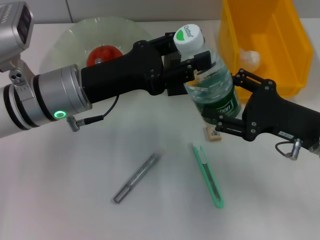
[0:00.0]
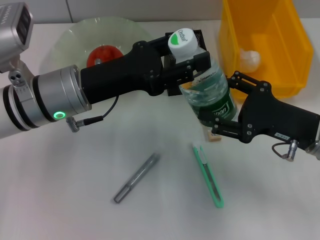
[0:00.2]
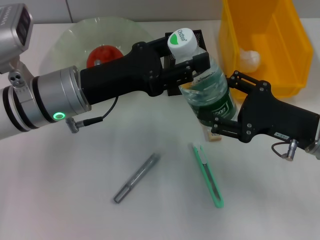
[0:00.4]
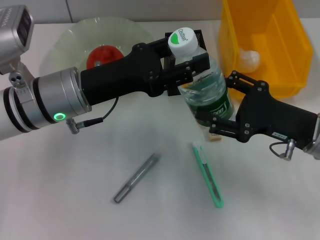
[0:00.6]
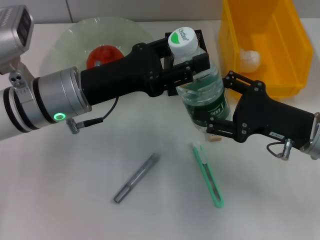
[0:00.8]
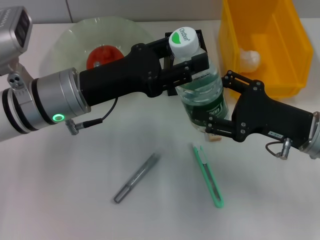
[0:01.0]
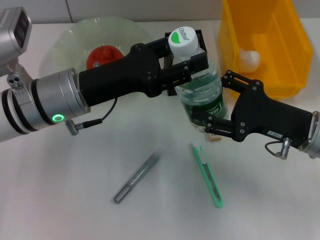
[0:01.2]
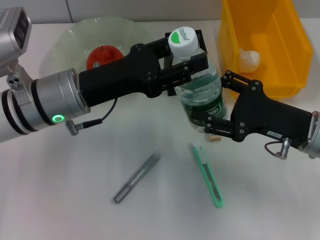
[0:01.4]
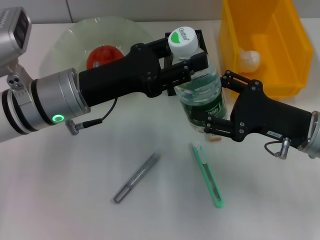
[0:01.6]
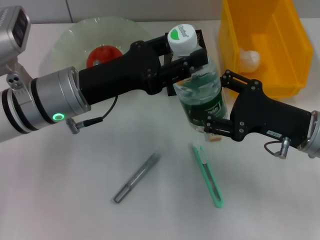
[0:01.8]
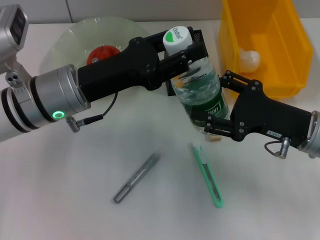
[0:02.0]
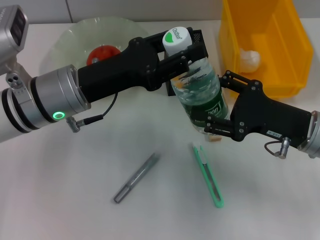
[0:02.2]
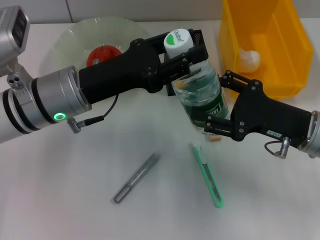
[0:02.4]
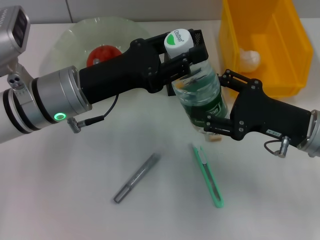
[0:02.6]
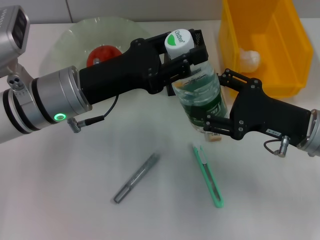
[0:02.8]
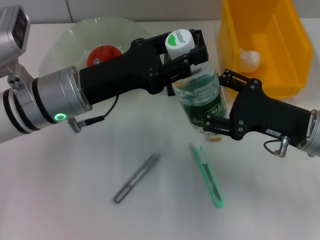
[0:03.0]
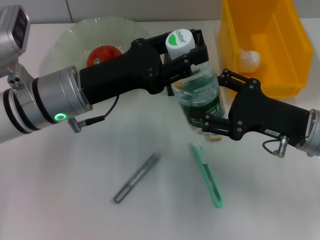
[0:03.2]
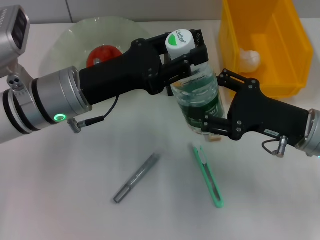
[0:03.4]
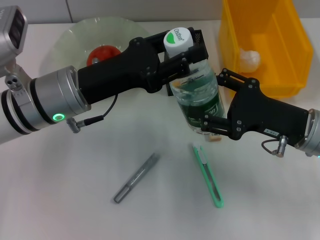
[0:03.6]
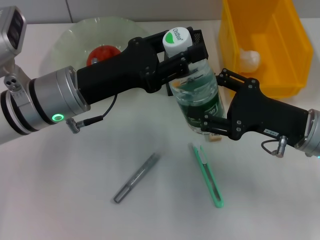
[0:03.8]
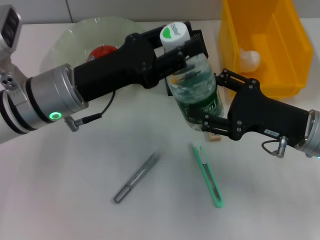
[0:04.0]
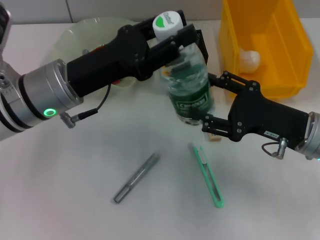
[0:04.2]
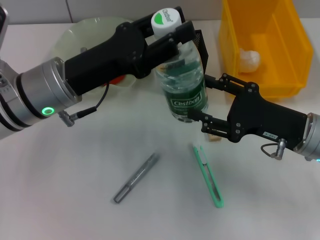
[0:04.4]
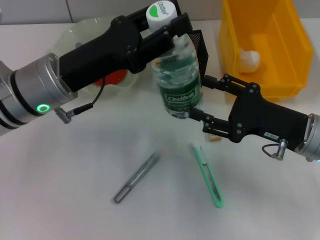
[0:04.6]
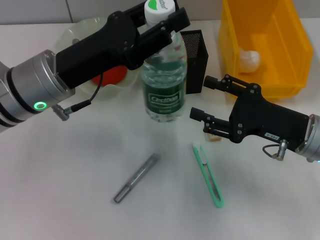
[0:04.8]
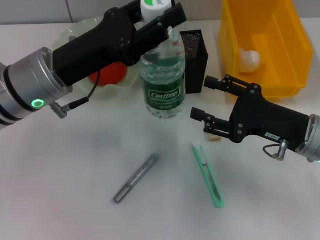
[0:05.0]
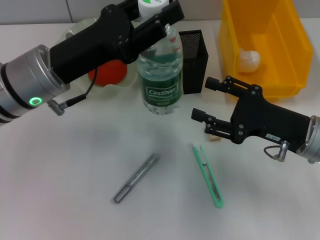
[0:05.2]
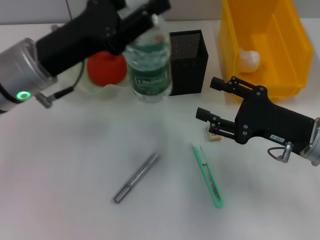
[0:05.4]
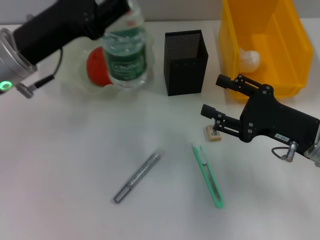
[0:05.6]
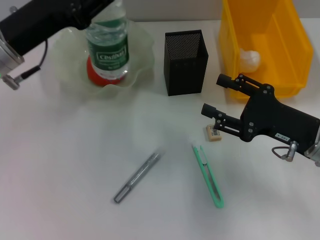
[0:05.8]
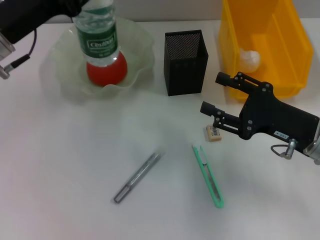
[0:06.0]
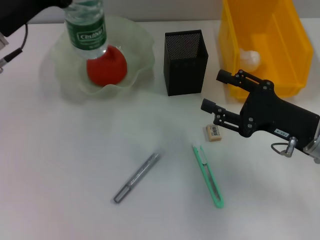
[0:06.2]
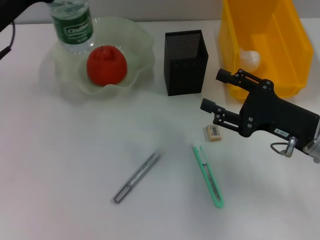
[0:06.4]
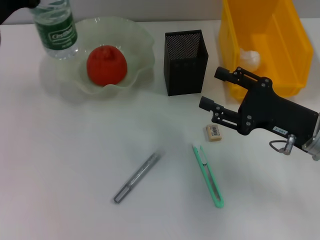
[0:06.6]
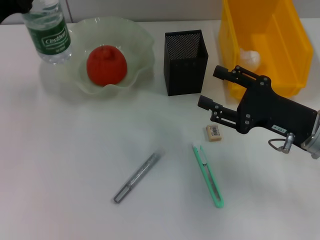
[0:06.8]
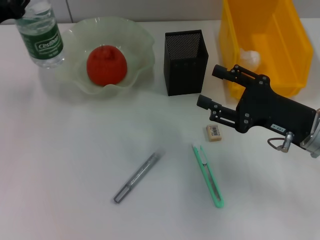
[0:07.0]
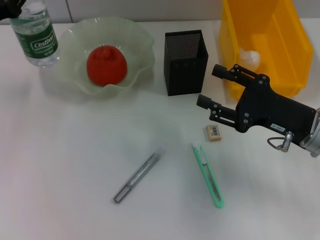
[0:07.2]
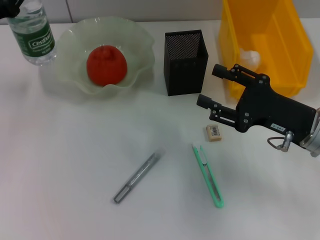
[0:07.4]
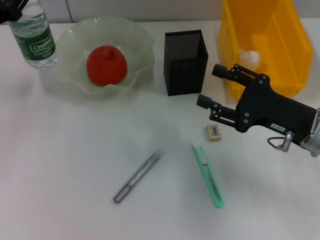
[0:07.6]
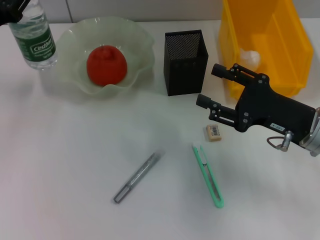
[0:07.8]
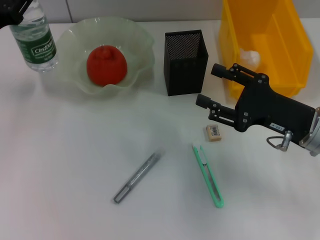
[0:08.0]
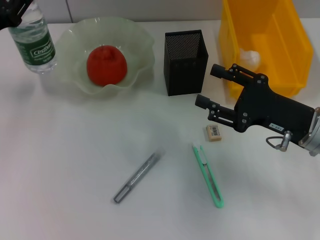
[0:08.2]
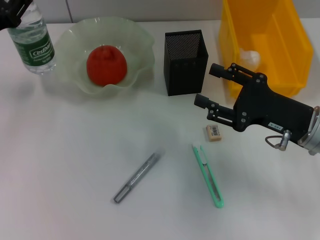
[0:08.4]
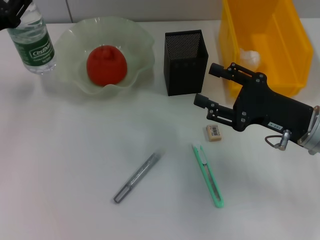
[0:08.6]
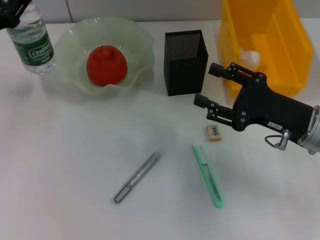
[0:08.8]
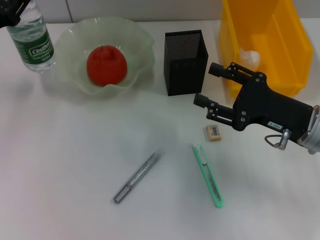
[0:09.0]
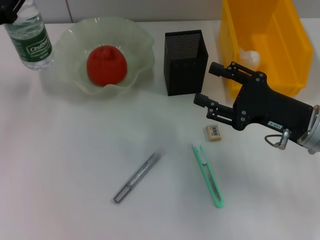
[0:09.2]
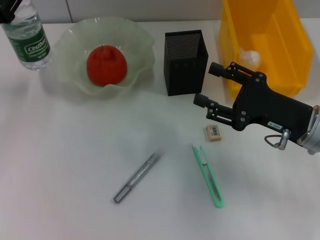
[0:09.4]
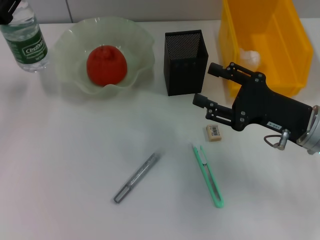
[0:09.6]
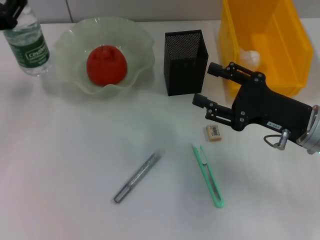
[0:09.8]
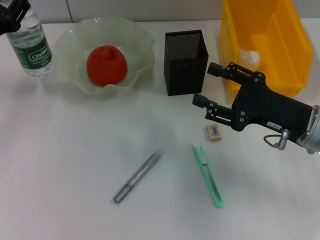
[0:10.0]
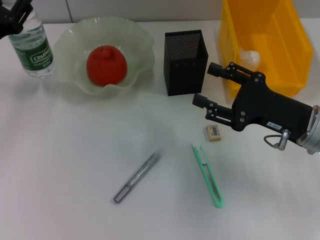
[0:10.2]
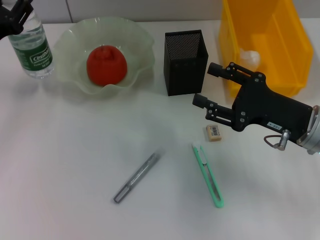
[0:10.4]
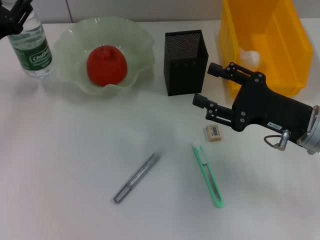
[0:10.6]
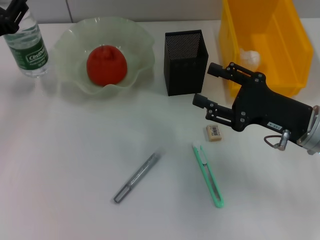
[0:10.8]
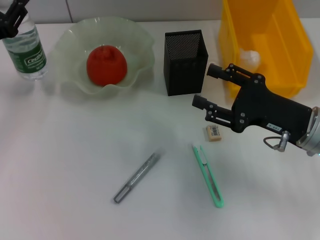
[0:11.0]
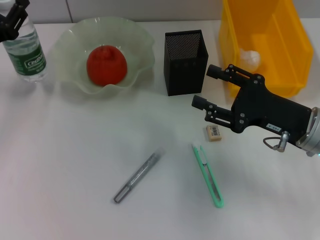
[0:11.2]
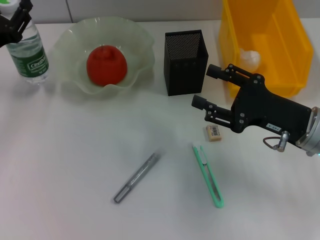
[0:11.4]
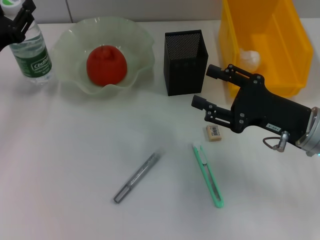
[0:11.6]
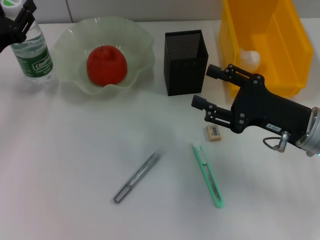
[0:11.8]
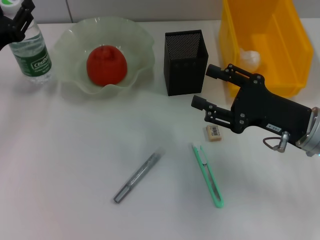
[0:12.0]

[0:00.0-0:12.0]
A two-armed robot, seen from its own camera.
Step, 0:00.0 to 0:04.6: Pass the water bottle from the right hand to the left hand.
0:00.0 to 0:01.6: The two grippers keep their place.
0:01.6 to 0:03.0: Neither gripper changes place.
0:03.0 to 0:04.4: There are only small adjustments of the grippers.
0:04.4 to 0:06.0: The left gripper heads to the left, covering about 5 cm.
0:06.0 to 0:07.6: The left gripper shifts approximately 5 cm to the left.
0:07.6 to 0:09.0: Neither gripper changes place.
0:09.0 to 0:12.0: There are only small adjustments of the grippers.

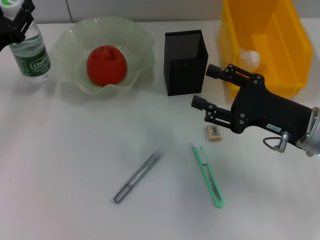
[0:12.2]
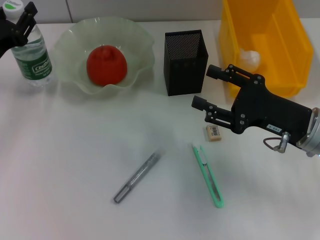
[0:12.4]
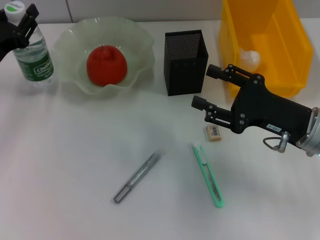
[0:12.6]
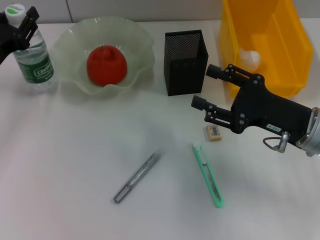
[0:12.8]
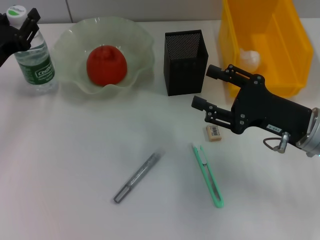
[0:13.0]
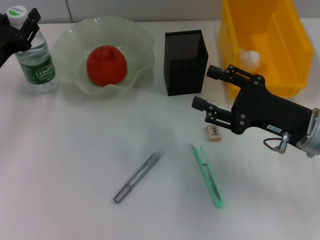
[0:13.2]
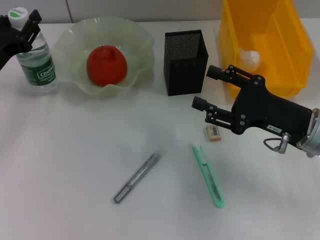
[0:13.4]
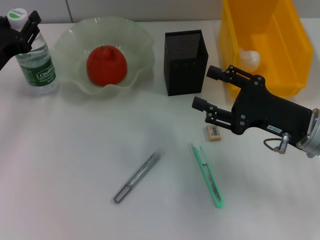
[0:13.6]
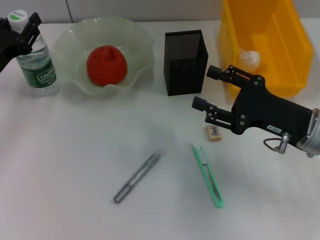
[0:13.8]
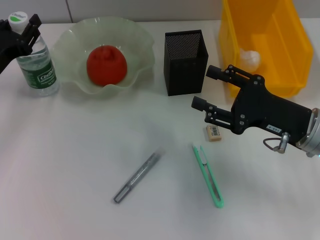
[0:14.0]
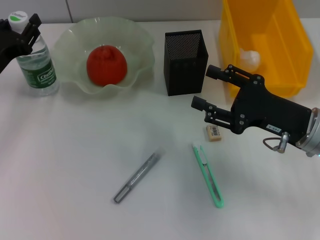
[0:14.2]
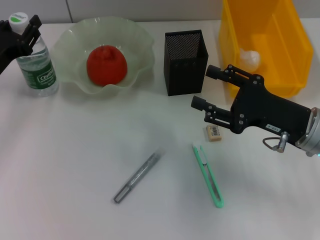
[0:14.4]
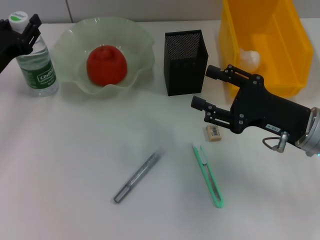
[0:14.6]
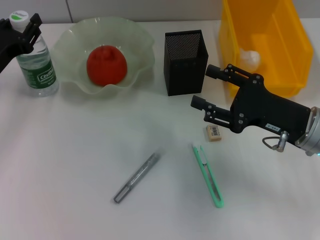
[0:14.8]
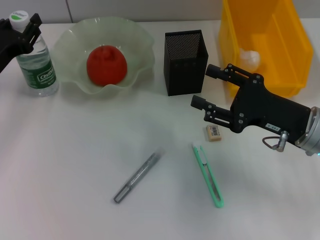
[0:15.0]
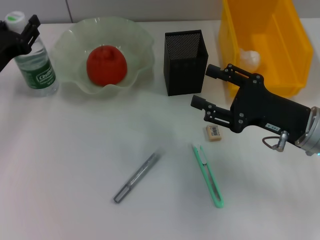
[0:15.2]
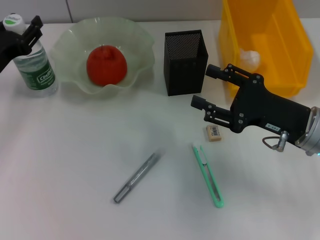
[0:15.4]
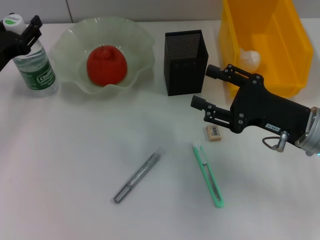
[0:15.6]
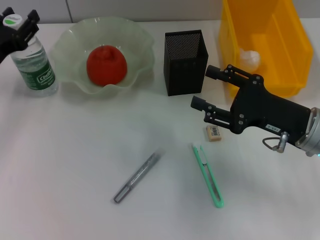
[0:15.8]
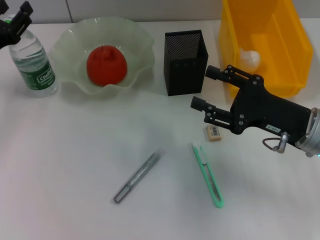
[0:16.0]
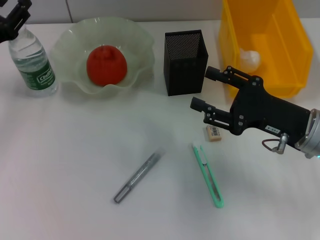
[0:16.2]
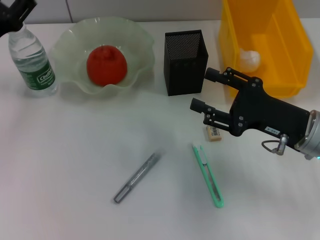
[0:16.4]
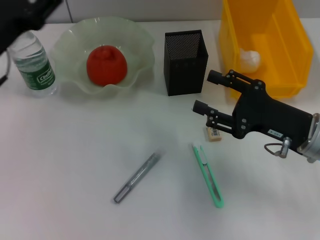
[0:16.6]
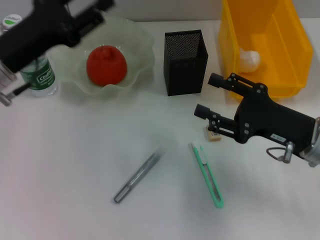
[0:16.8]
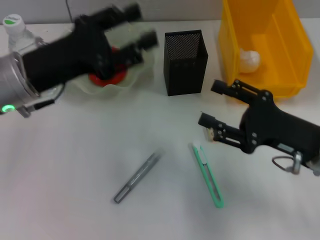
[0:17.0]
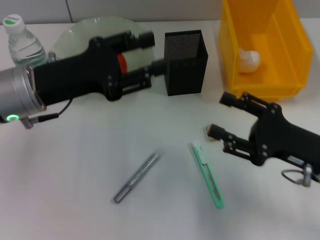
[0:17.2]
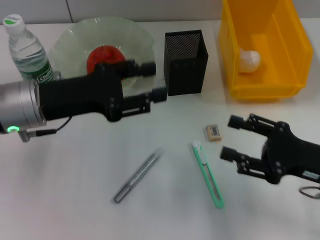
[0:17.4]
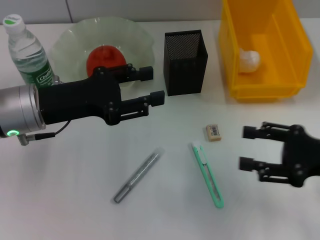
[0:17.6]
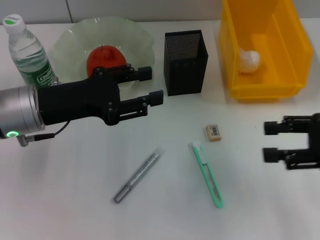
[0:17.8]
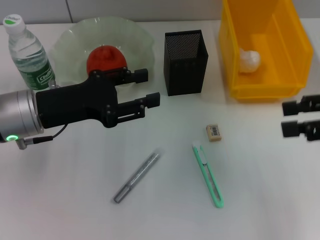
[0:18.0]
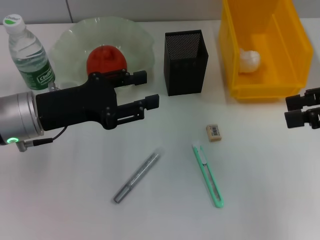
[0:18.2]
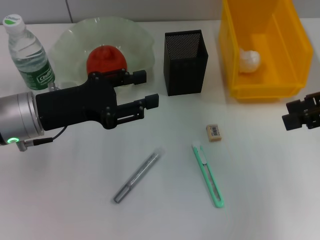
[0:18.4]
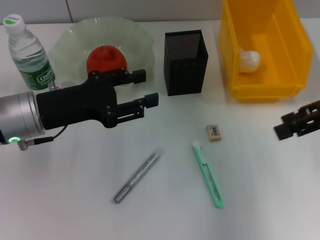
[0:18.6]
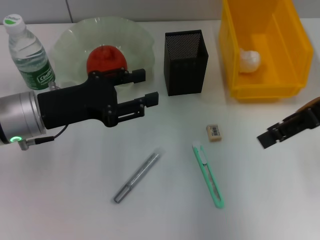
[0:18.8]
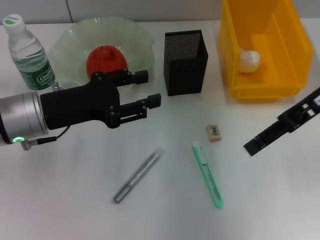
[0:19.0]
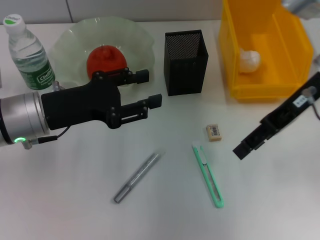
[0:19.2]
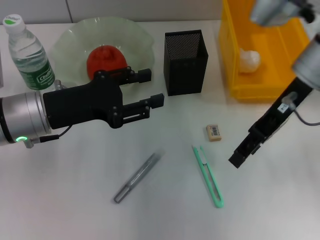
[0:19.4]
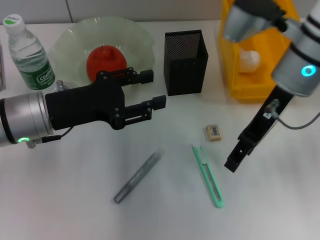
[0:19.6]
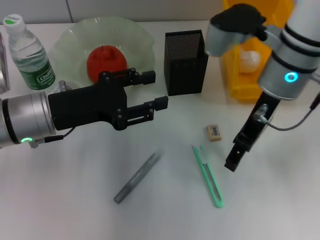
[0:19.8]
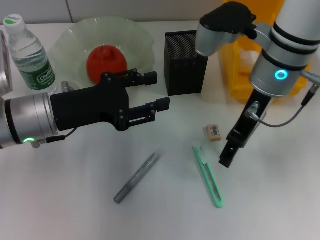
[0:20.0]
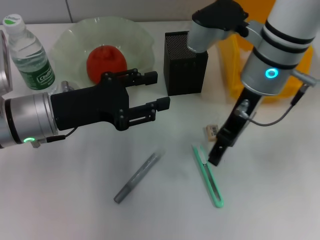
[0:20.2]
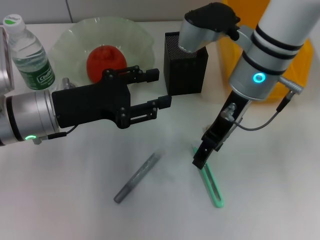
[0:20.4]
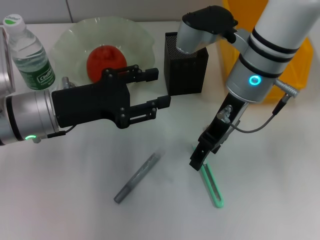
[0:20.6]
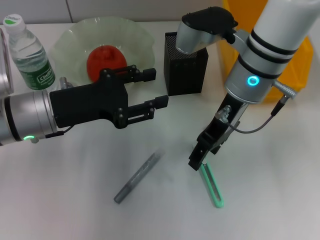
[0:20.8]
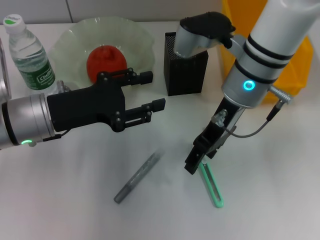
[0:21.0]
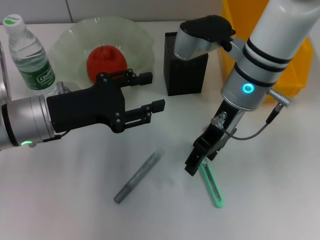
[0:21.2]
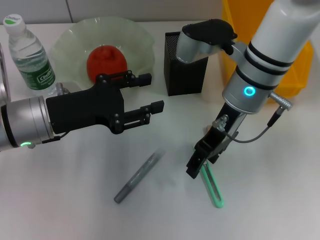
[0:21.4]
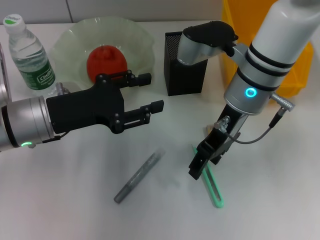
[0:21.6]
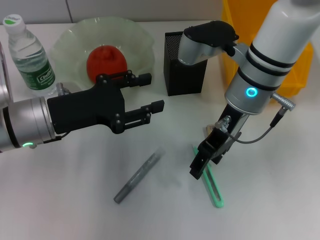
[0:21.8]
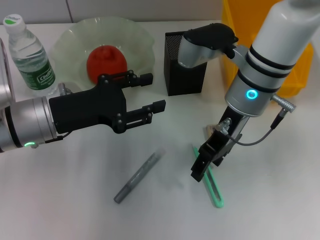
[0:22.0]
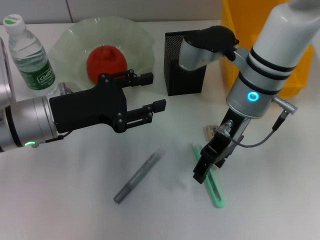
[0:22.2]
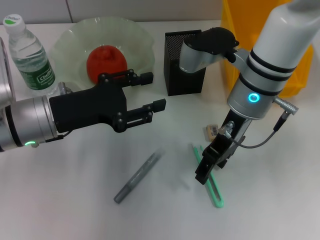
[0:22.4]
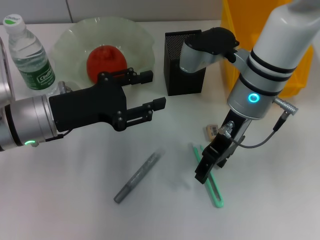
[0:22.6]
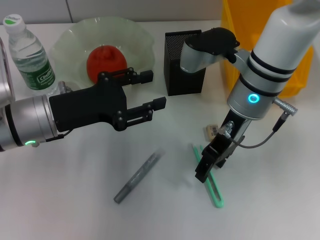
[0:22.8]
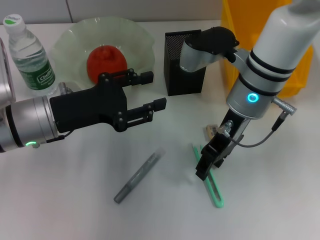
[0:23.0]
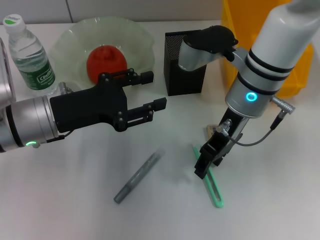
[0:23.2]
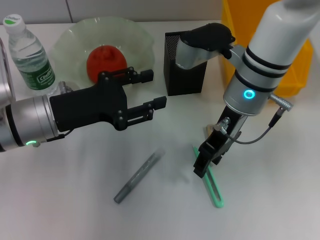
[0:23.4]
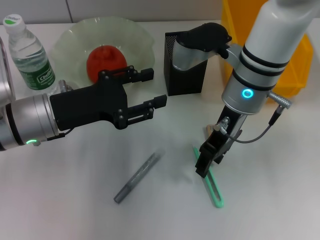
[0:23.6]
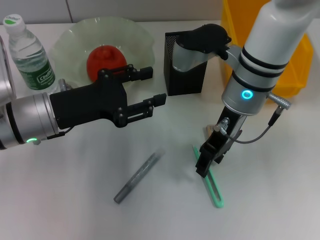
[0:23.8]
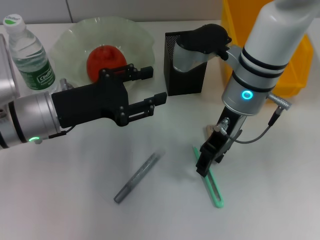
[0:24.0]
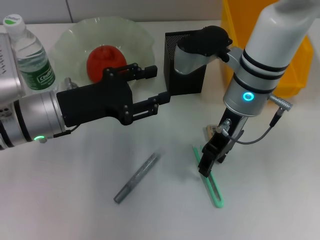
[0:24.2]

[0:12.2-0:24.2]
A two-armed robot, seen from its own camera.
Step, 0:12.2 to 0:15.2: Place the water bottle on the table with the left hand.
0:12.2 to 0:13.8: The grippers make only small movements.
0:13.8 to 0:15.2: Both grippers stay put.
0:15.2 to 0:16.6: The left gripper travels upward by some 5 cm.
0:16.6 to 0:18.2: The left gripper is displaced to the right by roughly 5 cm. The right gripper heads upward and to the right, covering roughly 20 cm.
0:18.2 to 0:19.8: The right gripper travels to the left and forward by about 20 cm.
0:19.8 to 0:21.2: The grippers stay close to where they were, moving slightly.
0:21.2 to 0:22.6: Both grippers stay about where they are.
0:22.6 to 0:24.2: Both grippers stay about where they are.
